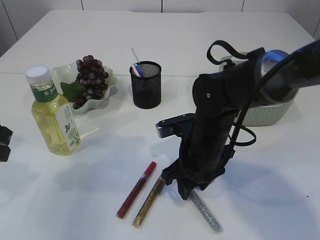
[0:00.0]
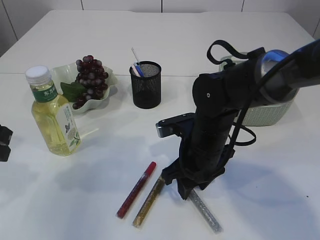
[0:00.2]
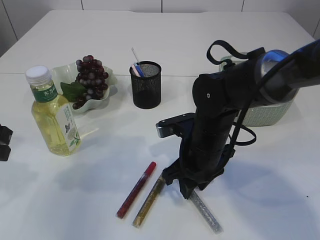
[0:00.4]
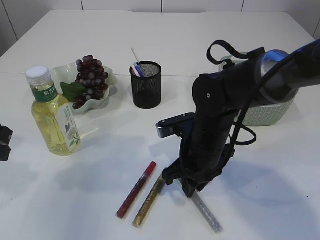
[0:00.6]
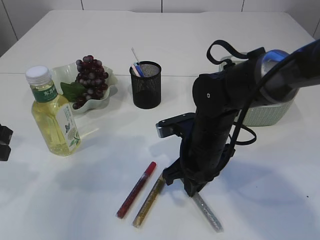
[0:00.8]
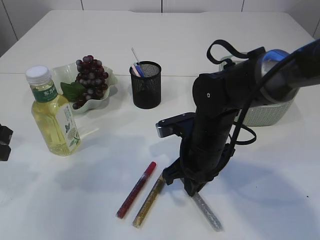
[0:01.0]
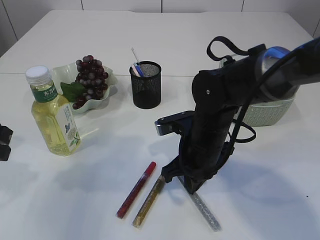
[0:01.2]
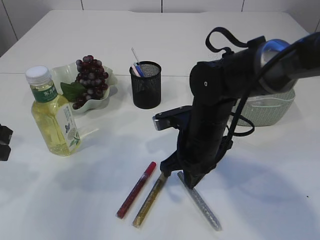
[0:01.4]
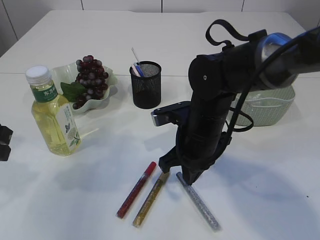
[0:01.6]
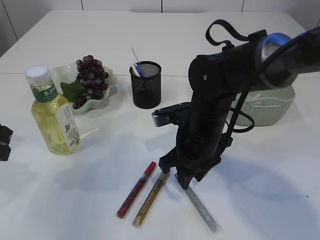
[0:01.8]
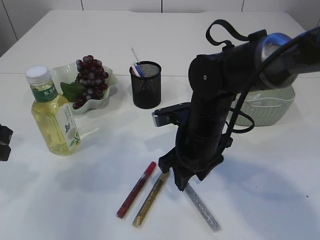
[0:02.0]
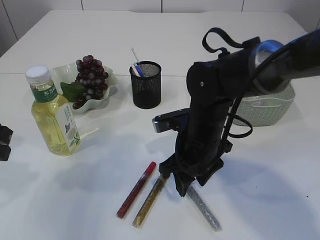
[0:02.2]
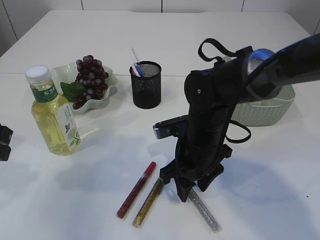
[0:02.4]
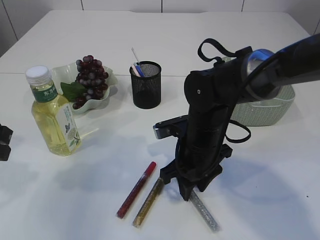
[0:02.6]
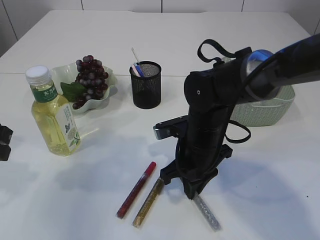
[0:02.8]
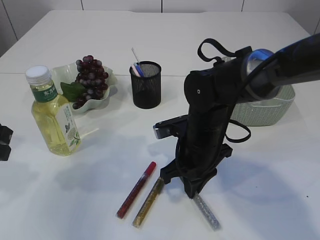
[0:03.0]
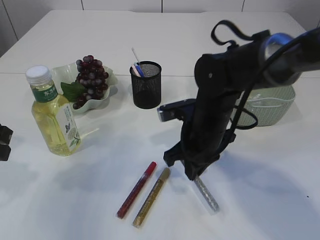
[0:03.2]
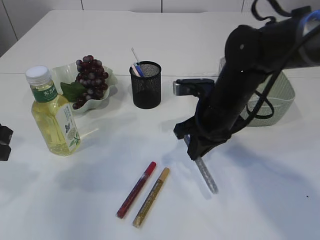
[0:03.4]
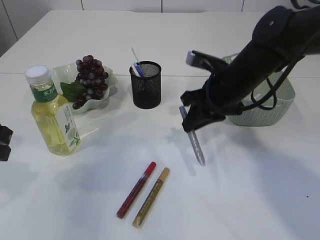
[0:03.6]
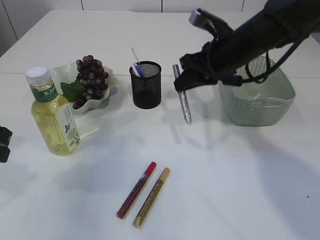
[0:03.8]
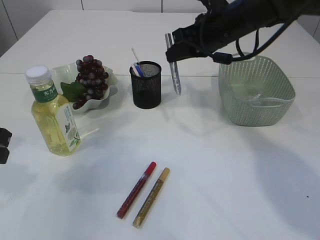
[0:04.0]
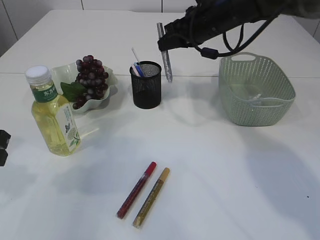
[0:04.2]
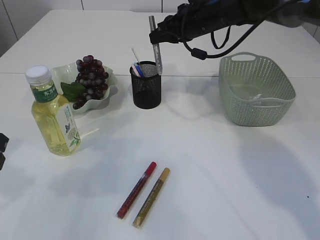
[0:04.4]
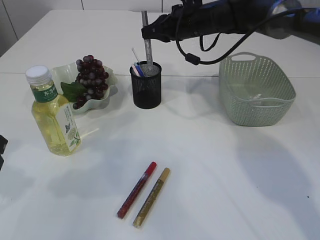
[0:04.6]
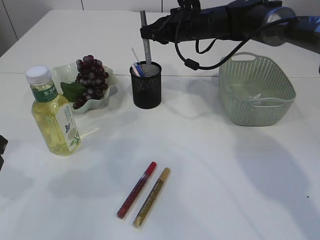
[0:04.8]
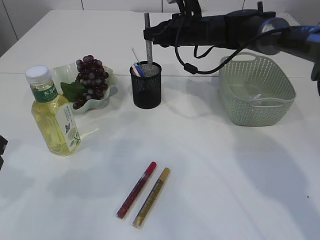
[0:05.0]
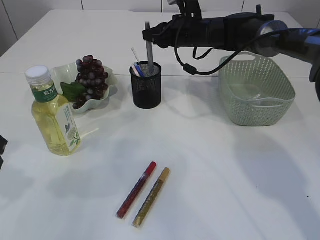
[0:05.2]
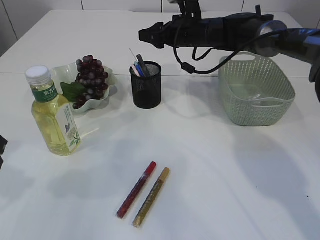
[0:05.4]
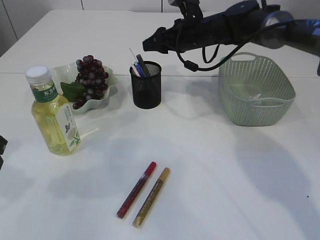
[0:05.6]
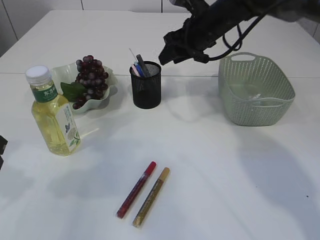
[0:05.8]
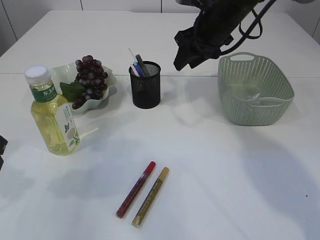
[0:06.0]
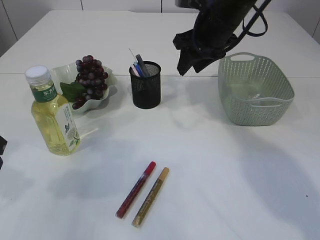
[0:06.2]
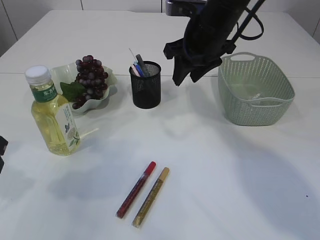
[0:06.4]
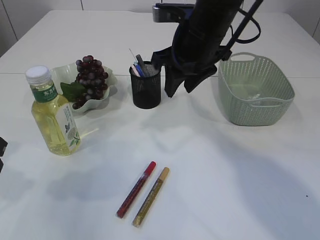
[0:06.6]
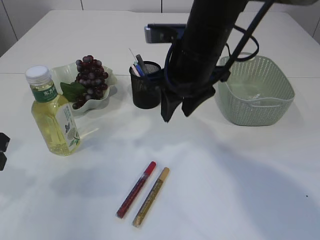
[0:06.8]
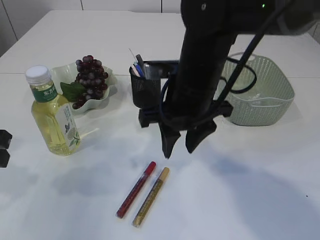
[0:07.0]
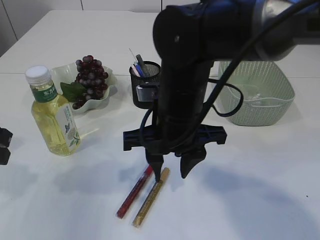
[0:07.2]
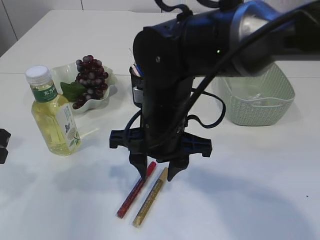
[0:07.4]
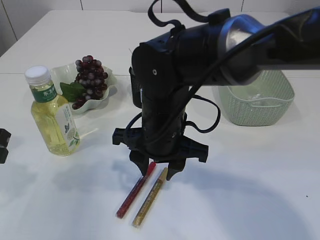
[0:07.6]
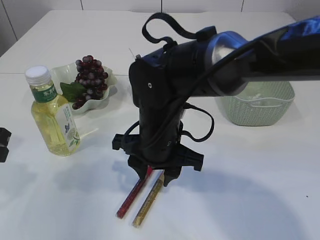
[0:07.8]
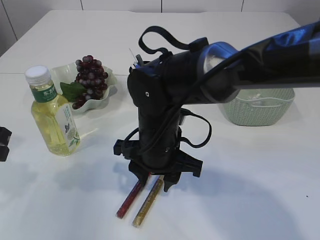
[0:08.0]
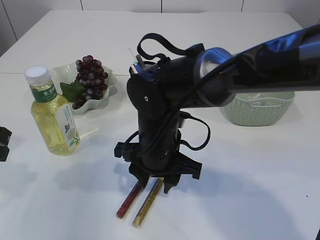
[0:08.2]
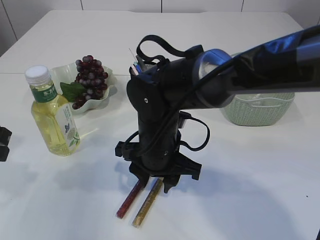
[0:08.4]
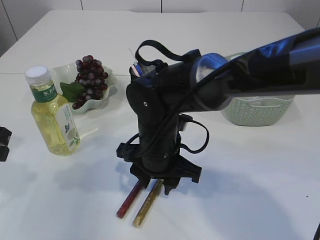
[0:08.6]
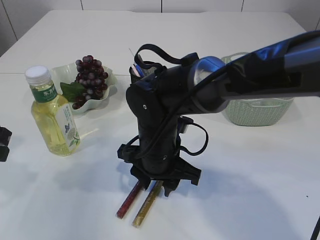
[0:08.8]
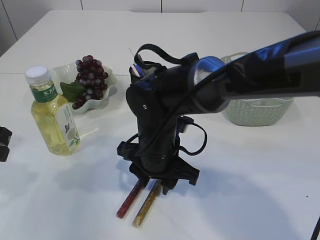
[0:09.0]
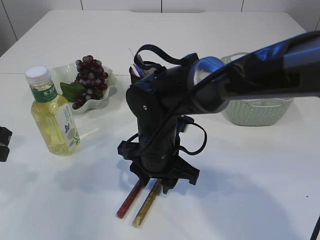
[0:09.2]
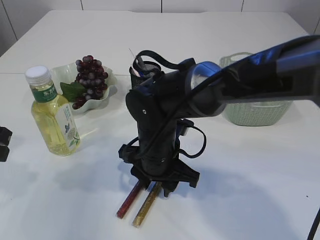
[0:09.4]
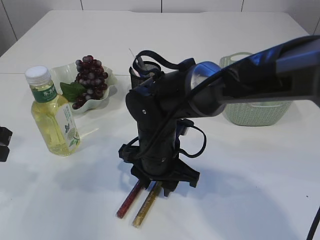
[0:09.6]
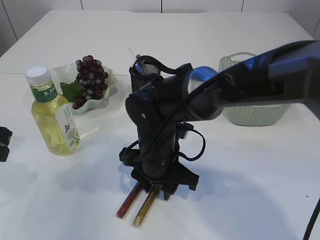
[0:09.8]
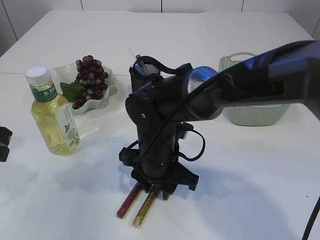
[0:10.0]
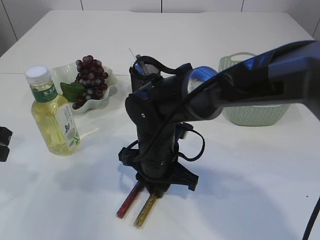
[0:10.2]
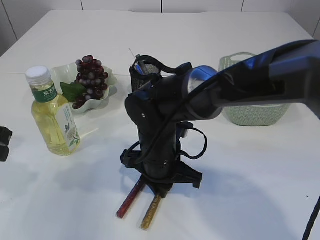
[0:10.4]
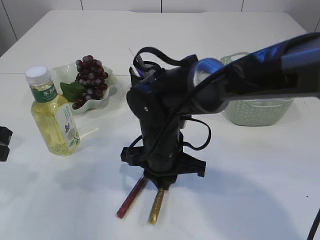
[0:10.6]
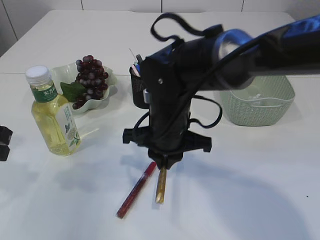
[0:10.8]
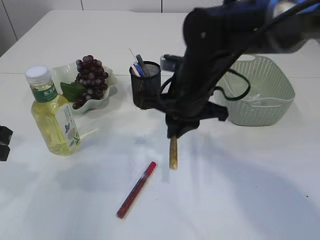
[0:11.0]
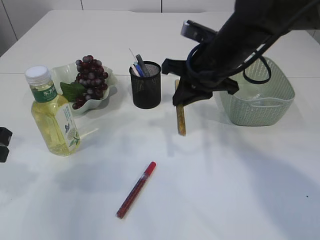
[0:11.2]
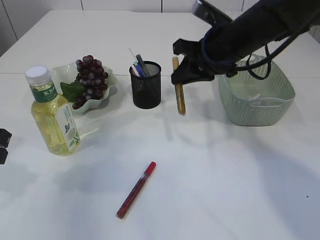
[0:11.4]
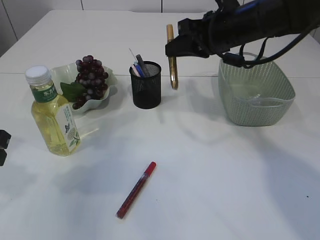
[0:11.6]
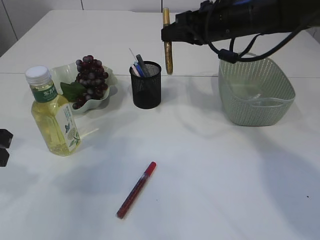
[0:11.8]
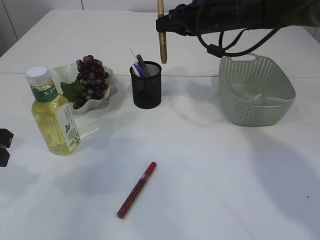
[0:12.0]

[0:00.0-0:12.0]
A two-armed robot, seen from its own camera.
Step, 0.0 to 3.4 s: pick up the silver glue.
Step, 3.6 to 5.2 s: place the silver glue into the pen holder.
Step, 5.4 to 11.0 s: pick up the yellow glue.
0.0 to 1.6 s: The right gripper closes its fingers.
1.6 to 3.0 s: The right gripper opens and closes again.
3.0 to 4.4 s: The right gripper is displaced forward and upward by about 25 cm.
4.4 to 6.0 s: The right gripper opens.
6.0 to 7.6 s: The right gripper is displaced backward, to the left and downward by approximately 25 cm.
7.6 to 9.0 s: The right gripper is displaced downward by approximately 5 cm.
9.0 to 10.4 s: The right gripper closes its fingers.
10.4 to 12.0 s: The right gripper moves forward, upward and to the right, approximately 25 cm.

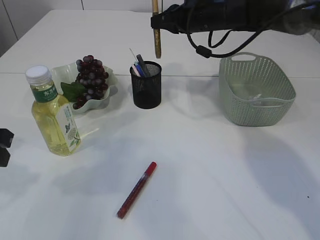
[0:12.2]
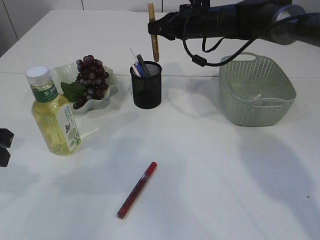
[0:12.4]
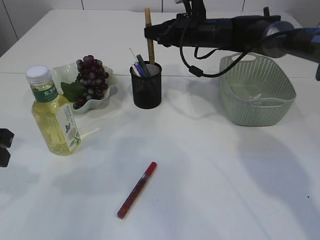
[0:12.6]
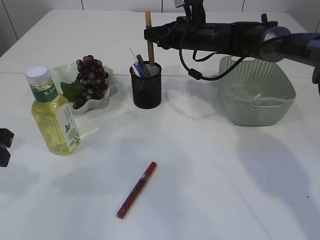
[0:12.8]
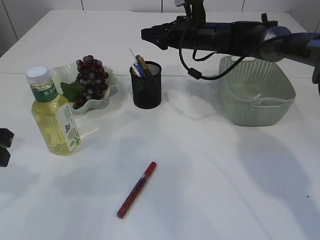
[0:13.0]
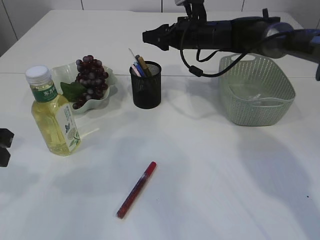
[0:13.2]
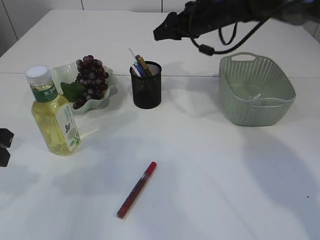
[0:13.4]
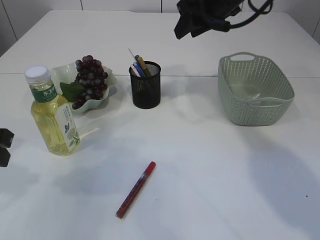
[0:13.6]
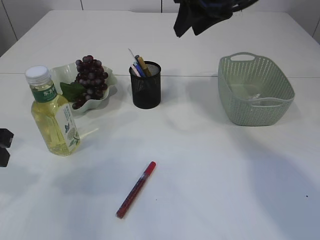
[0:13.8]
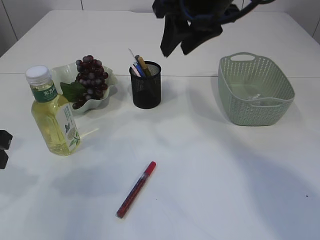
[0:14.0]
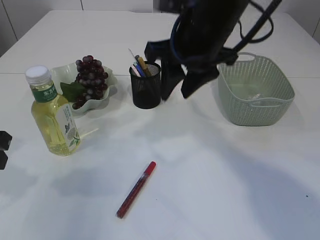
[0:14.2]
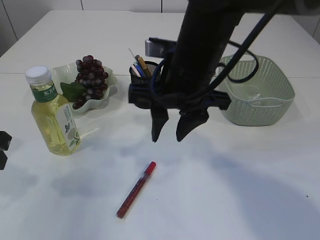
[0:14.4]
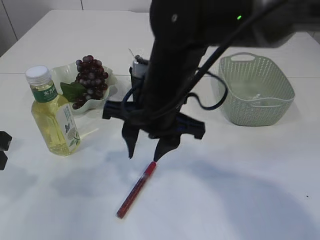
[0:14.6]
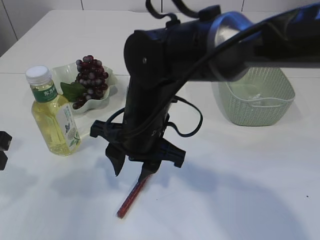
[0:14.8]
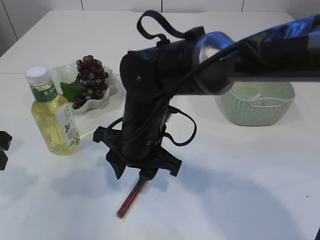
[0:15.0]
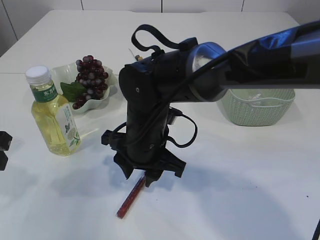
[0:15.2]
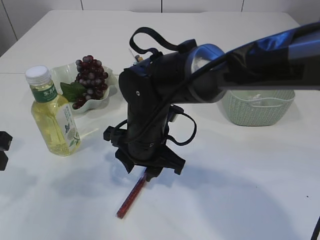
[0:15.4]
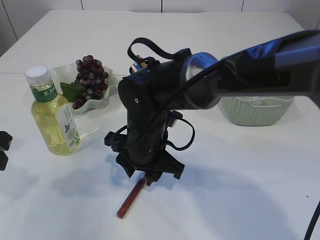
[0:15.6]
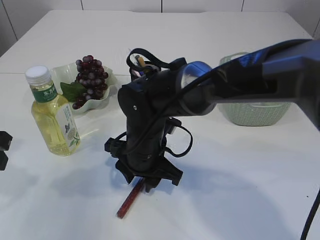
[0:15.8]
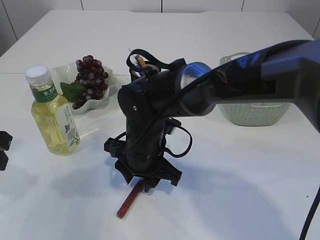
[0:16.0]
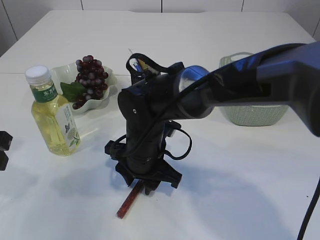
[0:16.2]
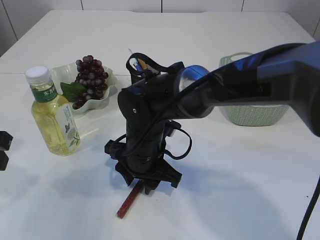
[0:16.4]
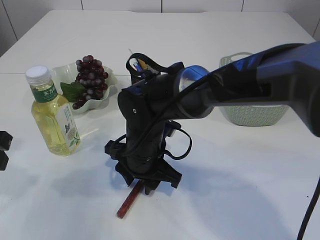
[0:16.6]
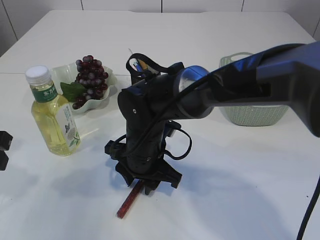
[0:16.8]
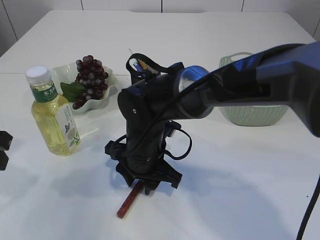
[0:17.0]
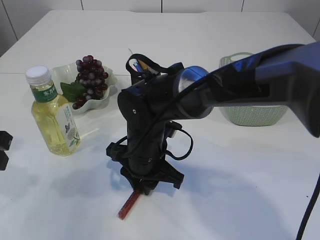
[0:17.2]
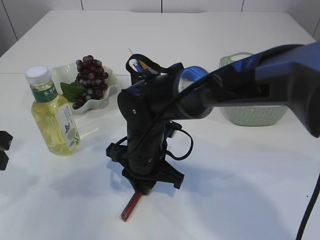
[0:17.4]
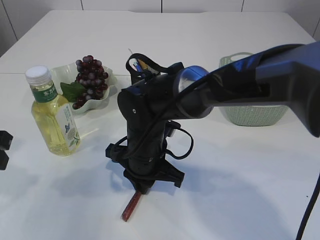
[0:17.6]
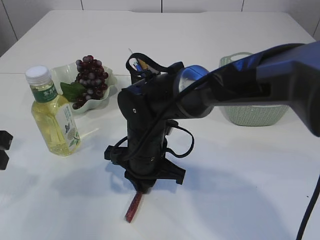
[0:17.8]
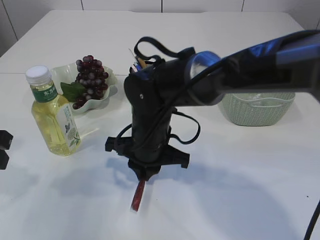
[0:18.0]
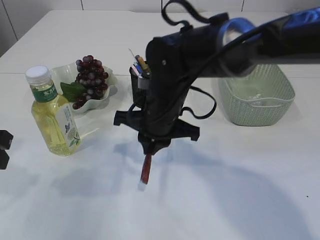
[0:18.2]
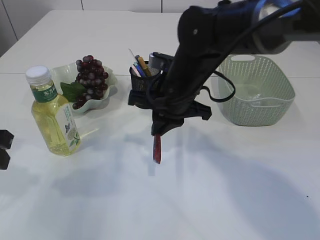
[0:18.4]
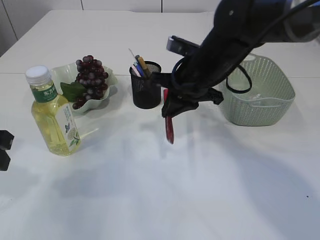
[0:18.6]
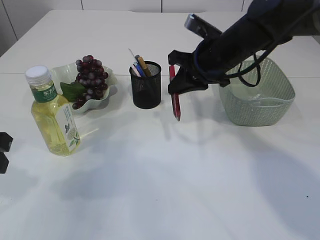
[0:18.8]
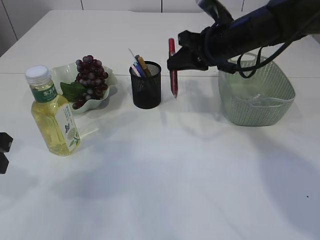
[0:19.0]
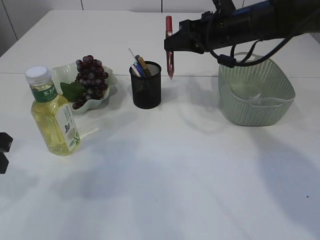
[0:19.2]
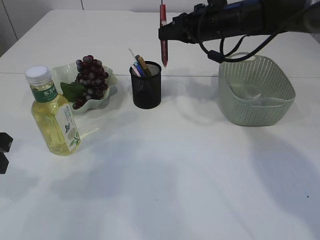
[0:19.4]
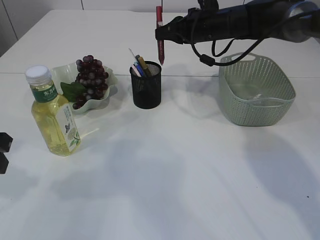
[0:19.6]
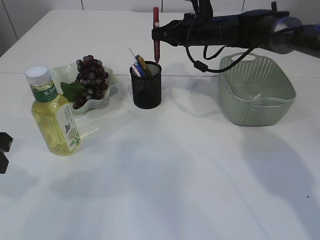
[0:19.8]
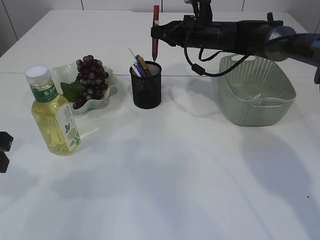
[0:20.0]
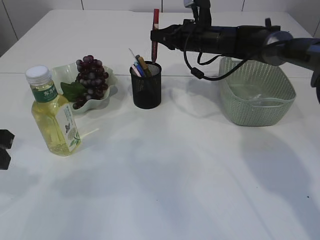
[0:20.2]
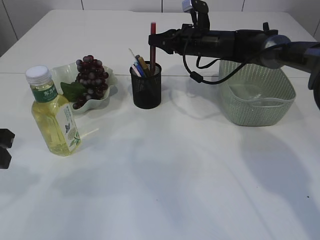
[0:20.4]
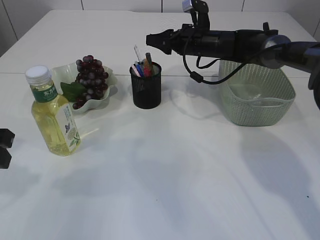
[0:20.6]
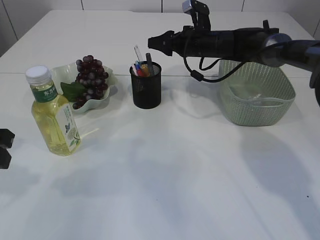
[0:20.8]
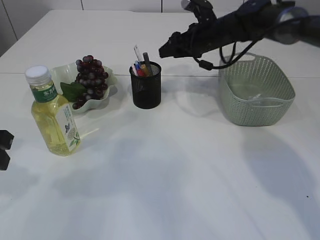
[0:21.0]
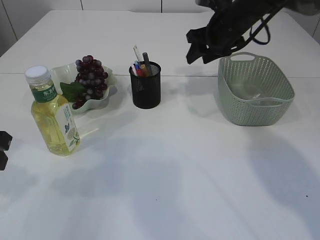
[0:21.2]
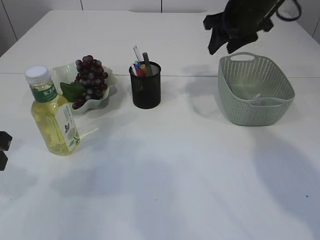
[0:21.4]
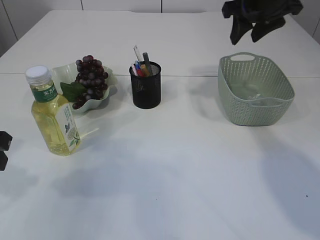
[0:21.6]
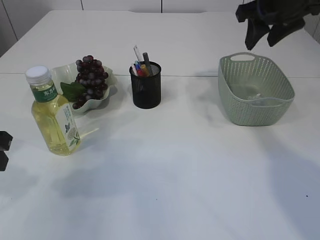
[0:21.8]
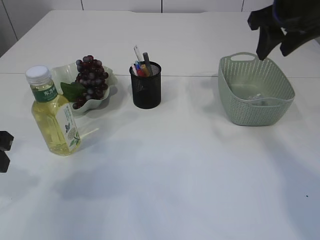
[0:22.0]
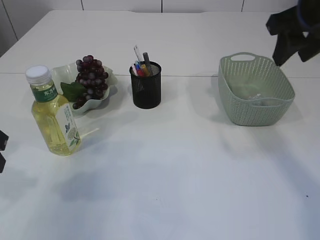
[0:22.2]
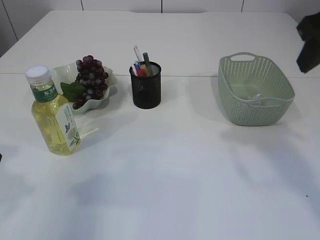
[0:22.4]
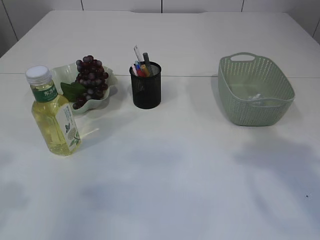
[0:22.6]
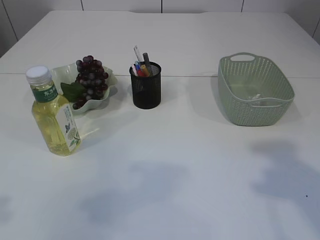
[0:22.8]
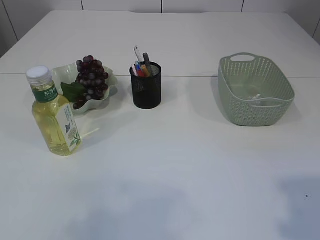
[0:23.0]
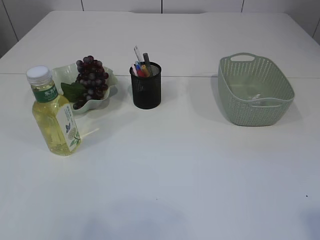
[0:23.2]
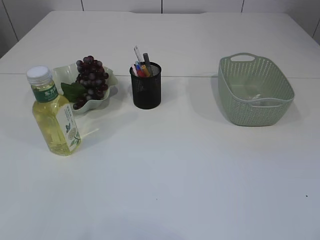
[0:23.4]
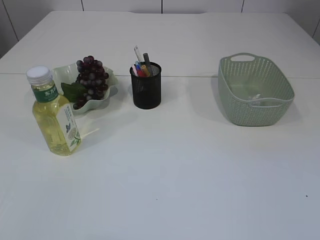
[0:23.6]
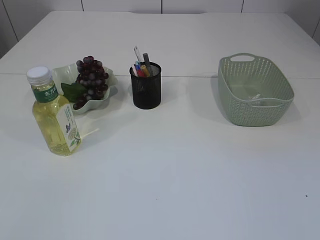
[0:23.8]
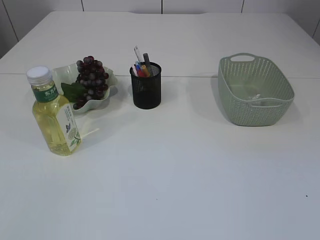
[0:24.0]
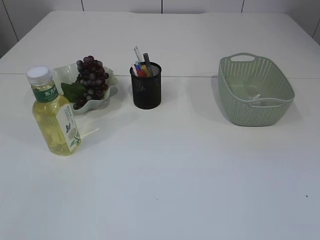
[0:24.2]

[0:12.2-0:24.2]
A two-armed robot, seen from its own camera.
Step, 12.2 to 13.2 s: place the yellow glue into the pen holder.
Step, 13.4 to 18.4 s: pick up the red glue.
Step, 18.6 to 20.8 s: place the red glue into the pen holder.
12.2 to 13.8 s: The right gripper travels upward and backward by roughly 15 cm, and opens its fingers.
13.8 to 15.2 s: The right gripper is displaced downward, to the left and backward by about 25 cm.
15.2 to 16.6 s: The grippers make only small movements.
16.6 to 18.2 s: The right gripper travels upward by about 5 cm, and closes.
18.2 to 19.8 s: The right gripper heads forward and to the right, covering some 25 cm.
19.8 to 21.2 s: The right gripper ends up roughly 5 cm from where it was, and opens its fingers.
21.2 to 22.6 s: The left gripper travels backward and upward by about 10 cm. Meanwhile the right gripper travels backward and upward by approximately 30 cm.
22.6 to 24.2 s: The left gripper travels backward and to the left by approximately 20 cm, while the right gripper moves backward, some 25 cm.
